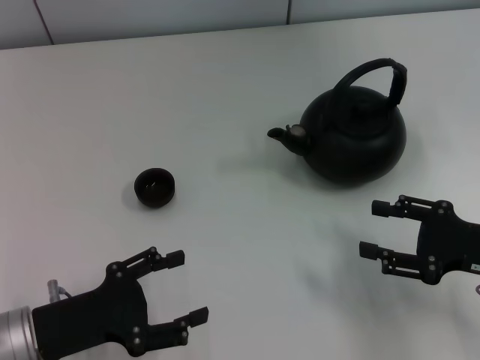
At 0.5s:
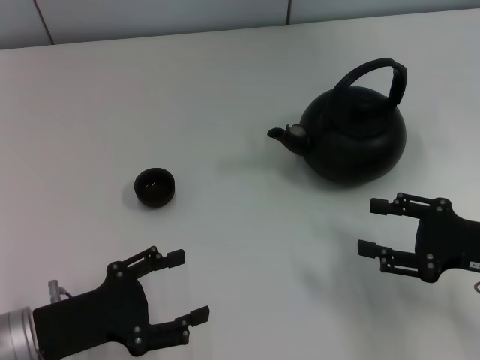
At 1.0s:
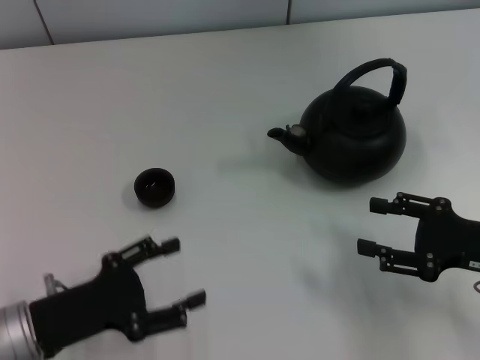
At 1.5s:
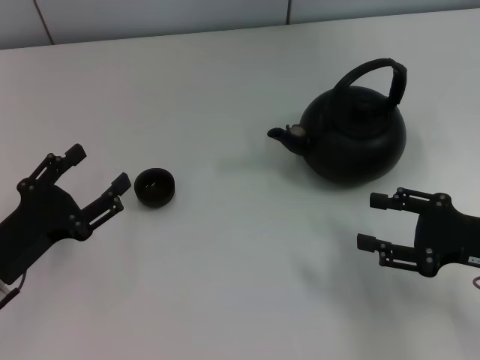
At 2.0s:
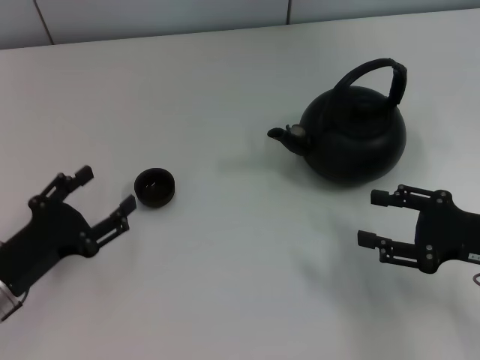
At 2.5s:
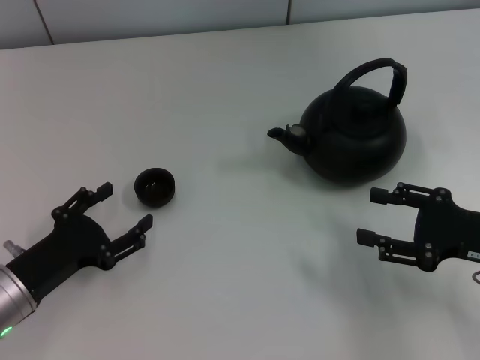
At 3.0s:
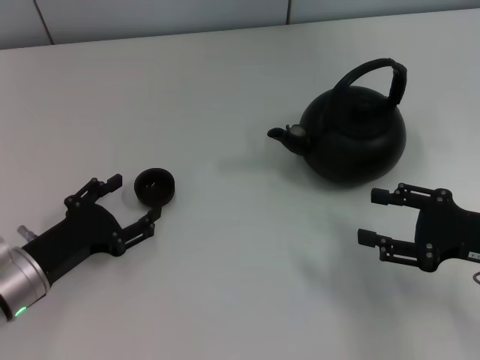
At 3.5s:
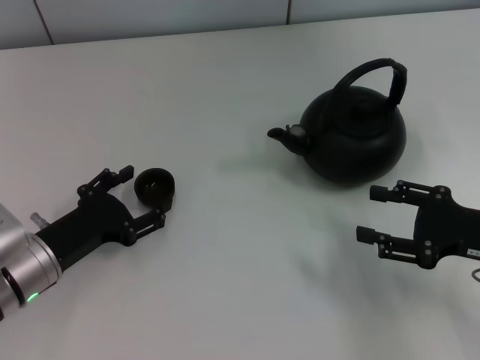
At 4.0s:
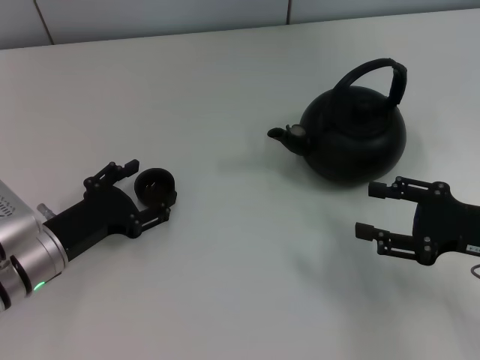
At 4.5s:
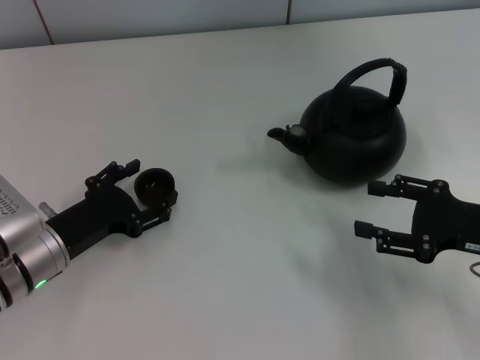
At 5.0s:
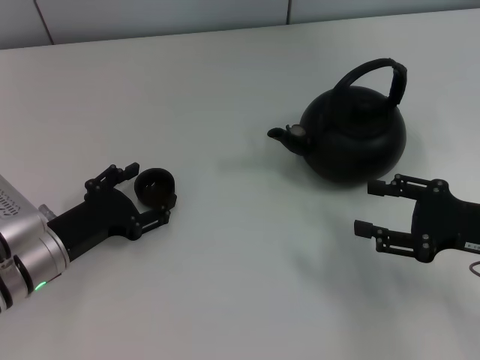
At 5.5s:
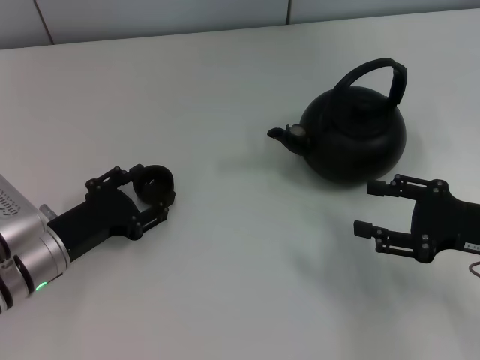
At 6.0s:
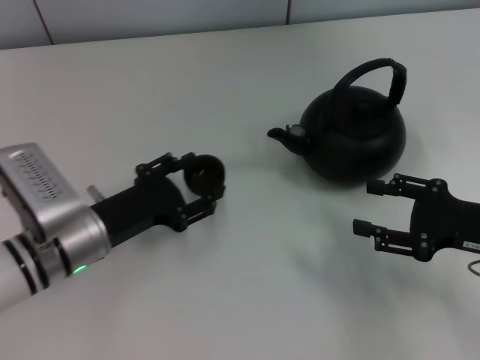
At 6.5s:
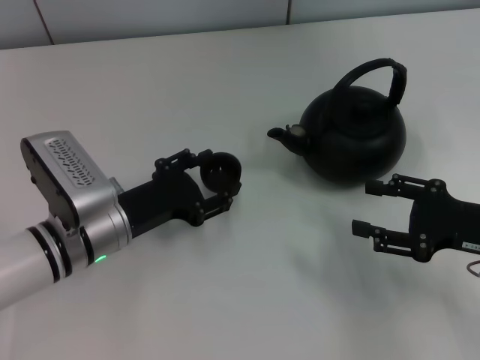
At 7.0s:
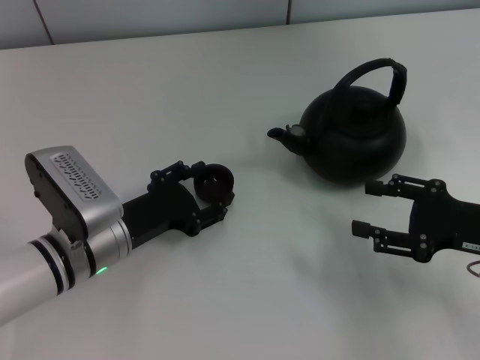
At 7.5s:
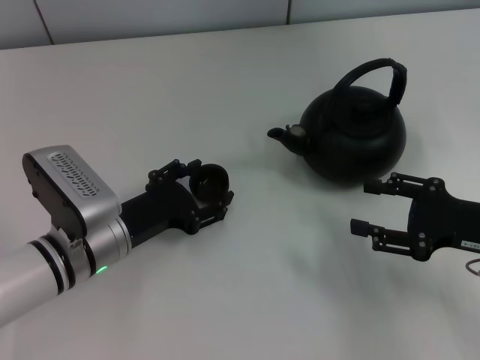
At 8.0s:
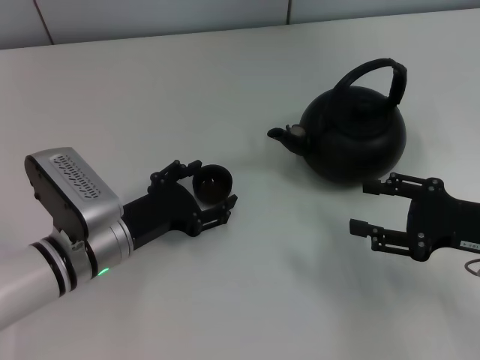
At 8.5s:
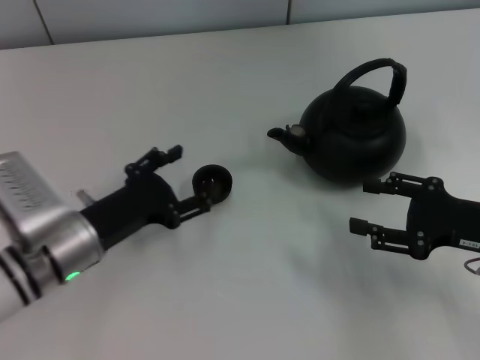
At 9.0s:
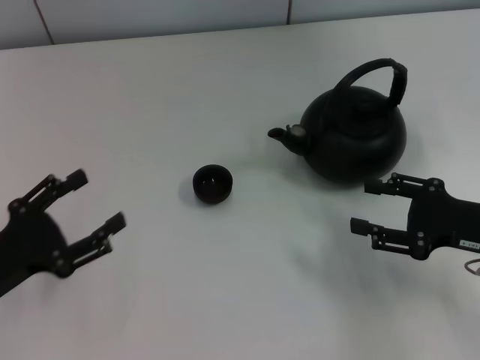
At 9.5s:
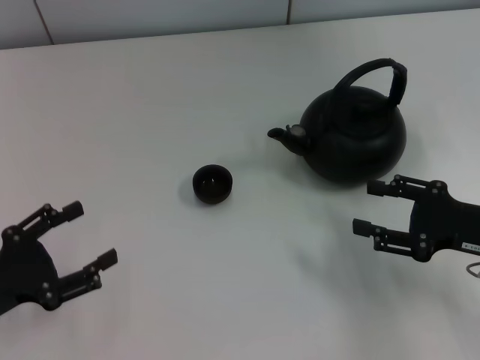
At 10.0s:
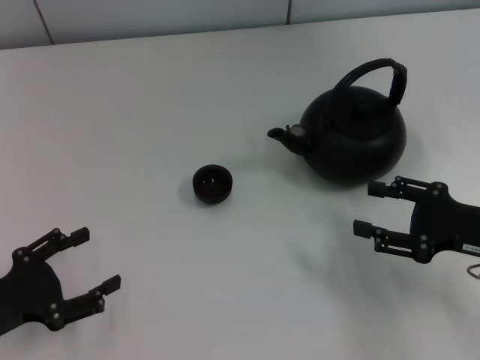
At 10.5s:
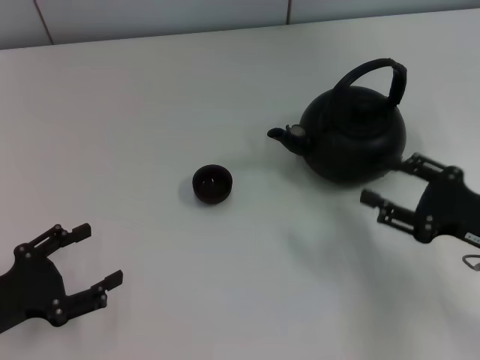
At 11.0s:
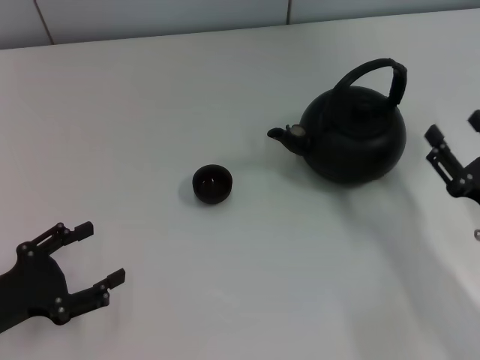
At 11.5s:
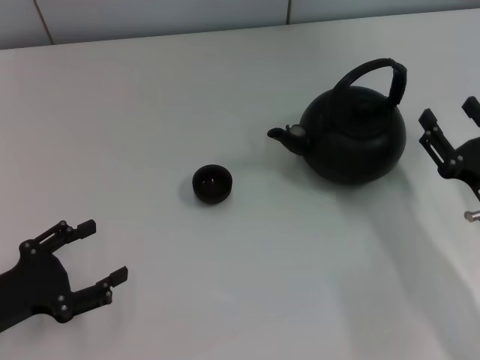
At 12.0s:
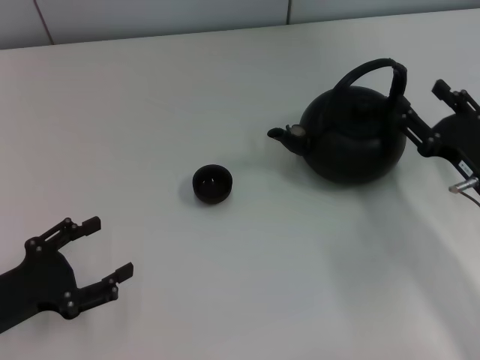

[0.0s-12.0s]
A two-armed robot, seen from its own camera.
Task of the whole recording: Grasp the handle of the teapot with one hand and pour tea into the teacup.
Step, 0.0s to 5.5s: Pick up the teacup with the left gripper.
Step, 6.5s to 8.0s: Place the teacup in the center of view with the left gripper.
2.0s to 4.0s: The left gripper shifts by about 5 cm.
4.0s to 6.0s: The left gripper closes.
6.0s to 8.0s: The left gripper opens.
8.0s to 10.0s: The left gripper moves to the left and backward, approximately 15 cm.

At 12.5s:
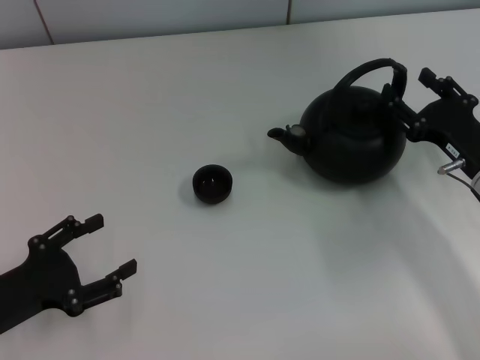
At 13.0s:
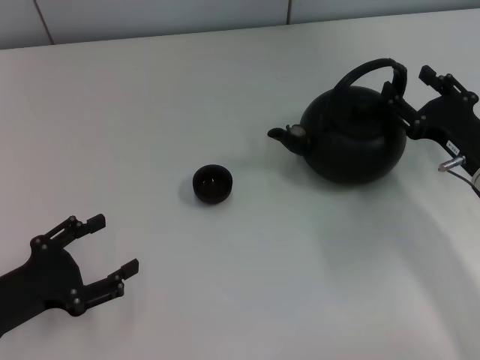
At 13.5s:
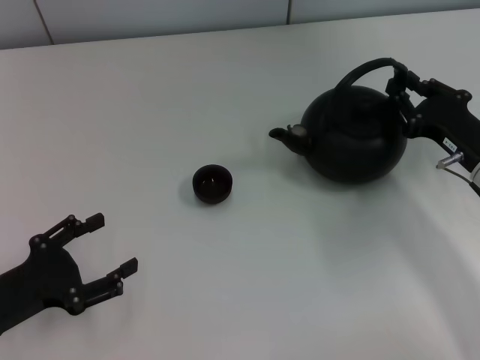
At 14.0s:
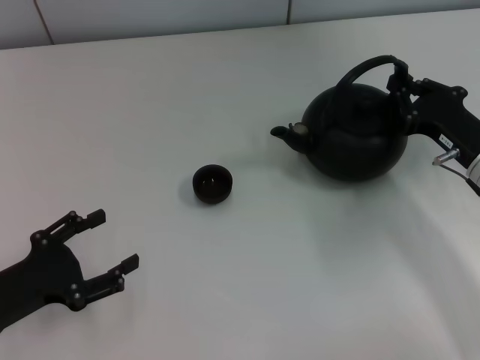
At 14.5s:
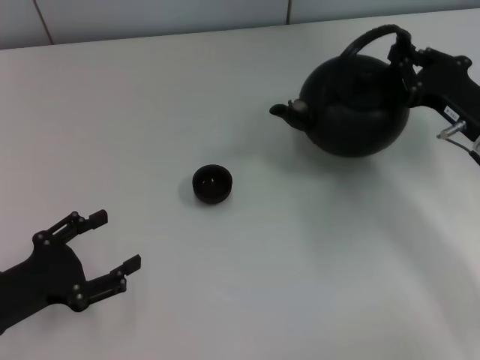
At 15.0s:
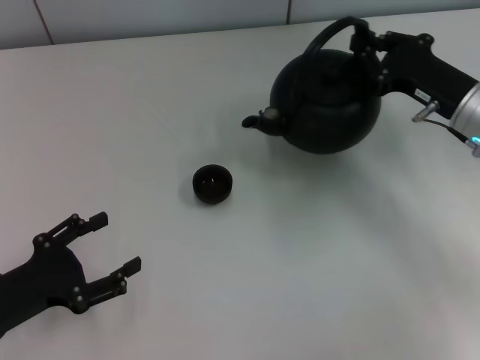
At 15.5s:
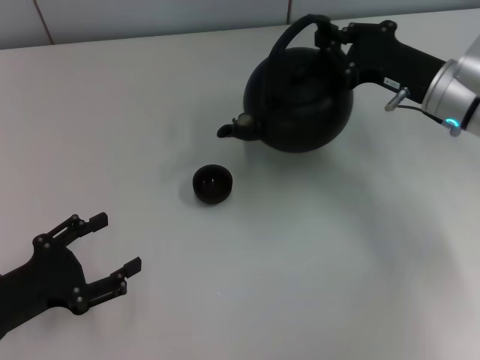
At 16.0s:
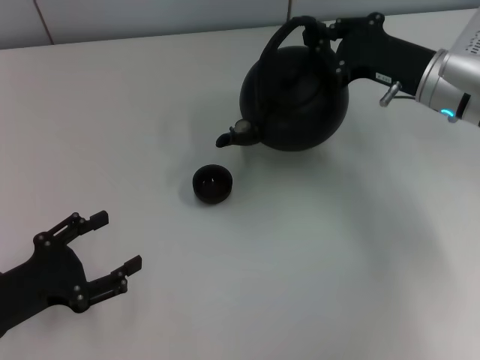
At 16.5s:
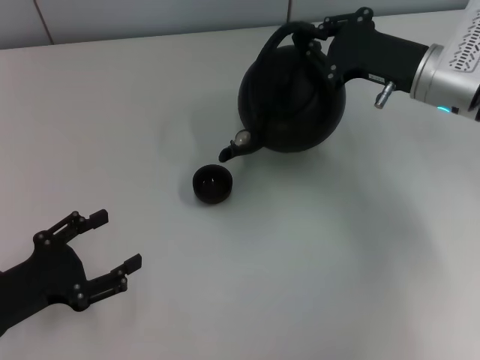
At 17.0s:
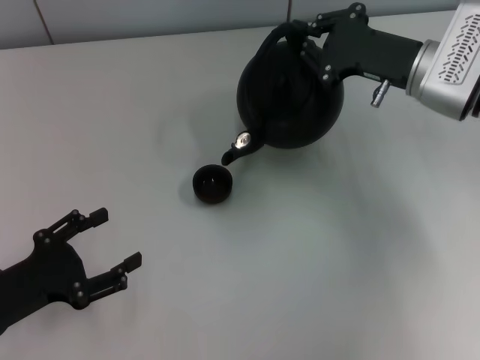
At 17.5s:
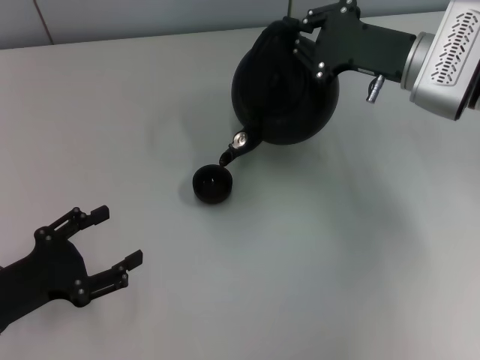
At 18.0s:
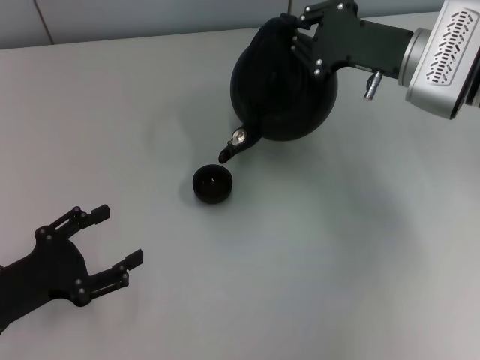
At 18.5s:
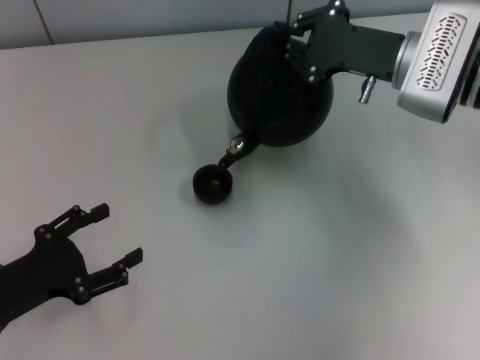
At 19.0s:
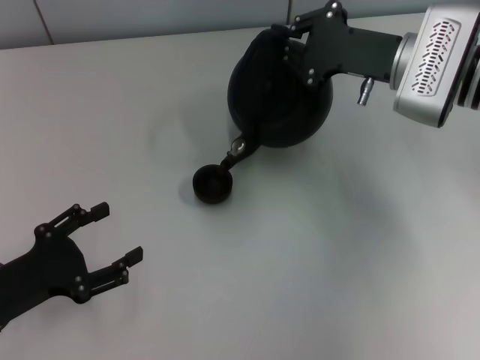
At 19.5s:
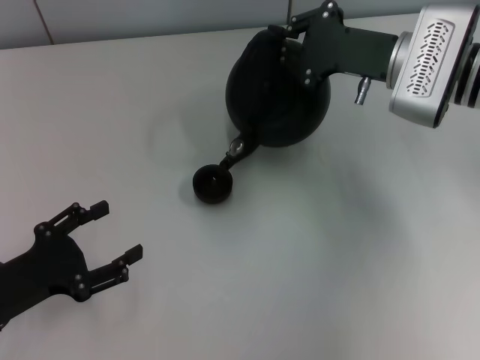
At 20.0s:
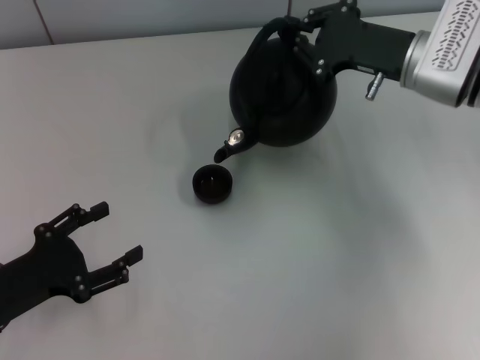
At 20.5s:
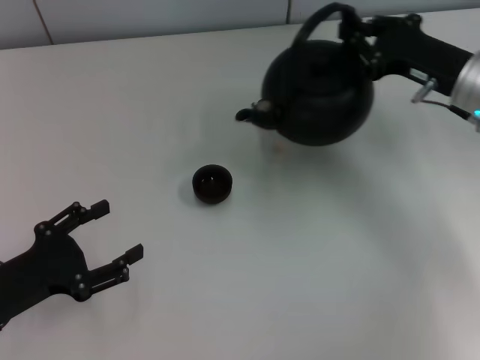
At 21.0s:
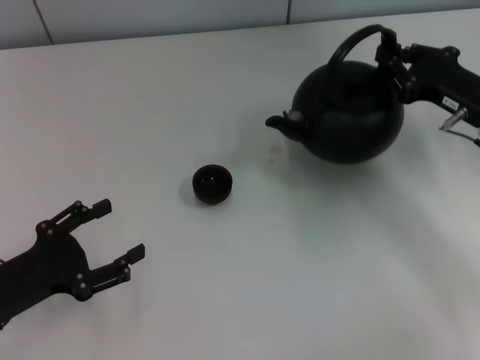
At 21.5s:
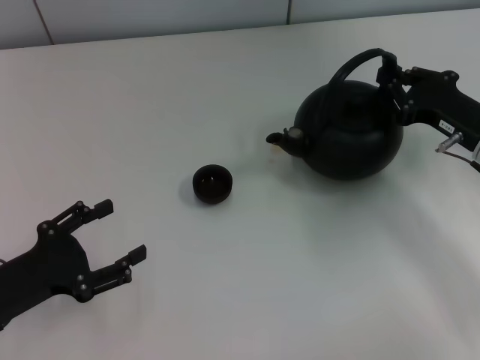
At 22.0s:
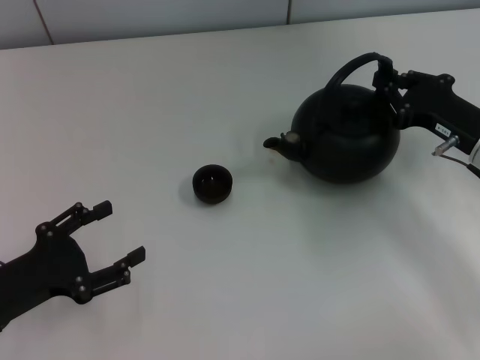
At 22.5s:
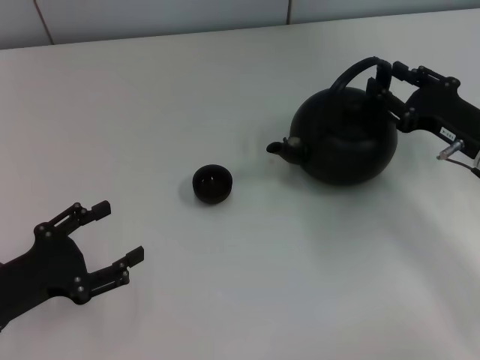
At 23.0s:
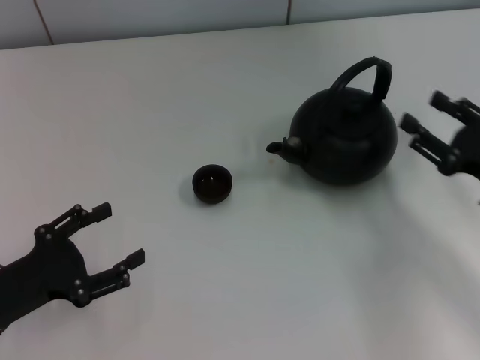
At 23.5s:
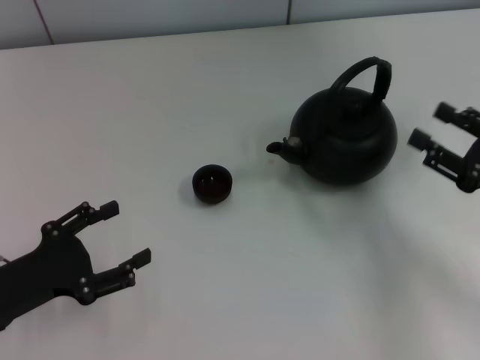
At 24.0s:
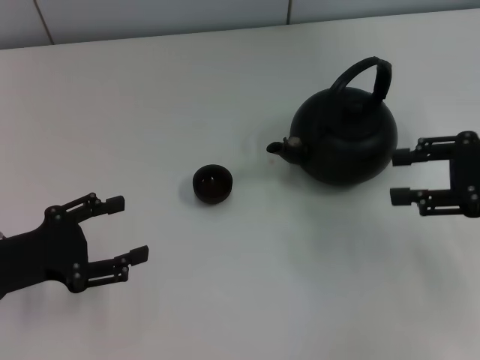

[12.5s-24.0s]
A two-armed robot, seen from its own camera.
Task of the whole recording: Grasp the handle of the teapot with one hand and pour tea into the teacup.
Step, 12.5s to 14.5s: Pick up the teapot with the right gripper.
Step, 20.5s to 22.5s: Put down the teapot with the right gripper.
12.5s to 14.5s: The right gripper closes up.
14.5s to 16.5s: The right gripper shifts about 10 cm forward, to the left and upward.
16.5s to 20.0s: The grippers stay close to where they were, moving slightly.
20.0s to 22.0s: The right gripper is displaced backward, downward and to the right by approximately 10 cm.
22.0s to 24.0s: The right gripper travels upward by some 5 cm, and opens.

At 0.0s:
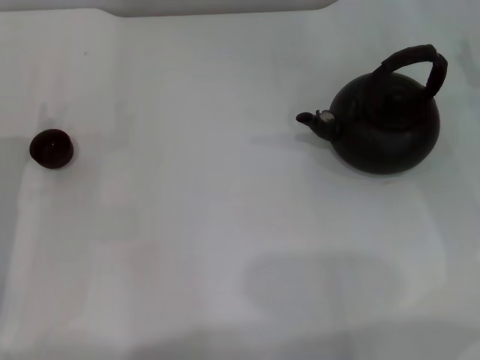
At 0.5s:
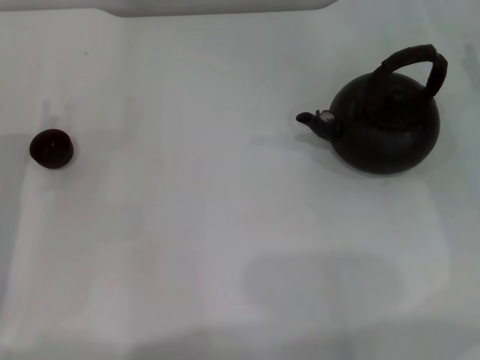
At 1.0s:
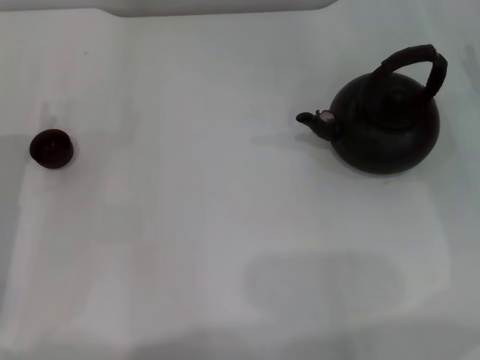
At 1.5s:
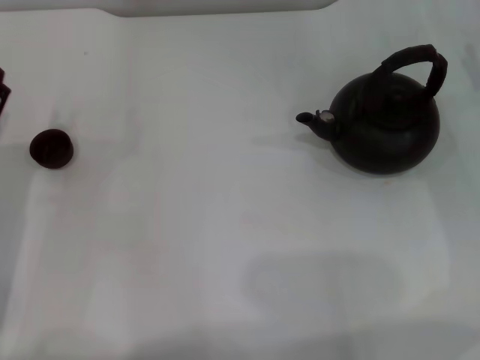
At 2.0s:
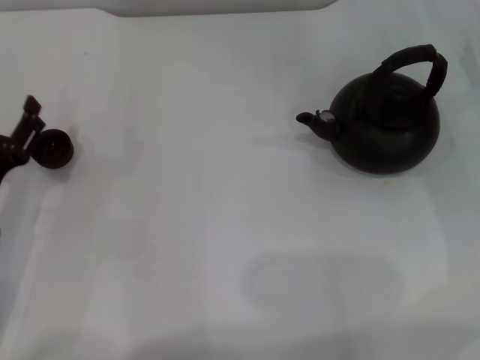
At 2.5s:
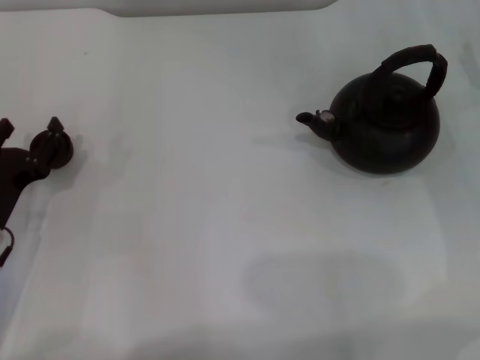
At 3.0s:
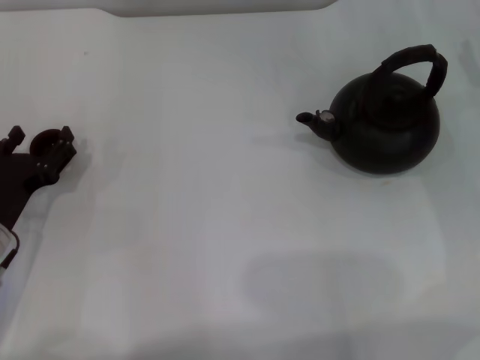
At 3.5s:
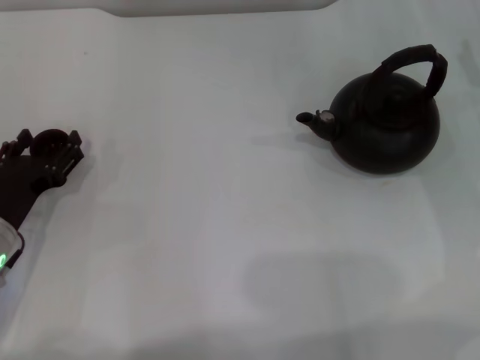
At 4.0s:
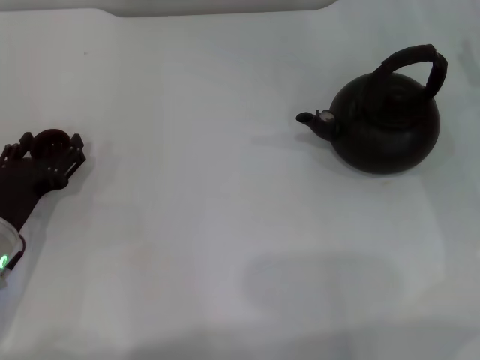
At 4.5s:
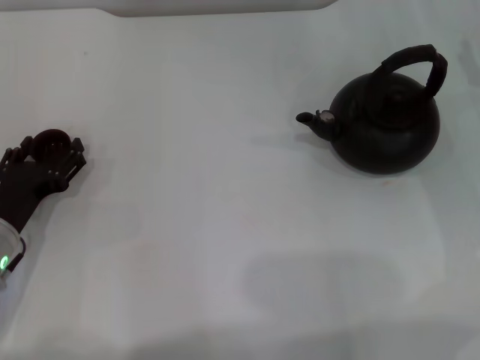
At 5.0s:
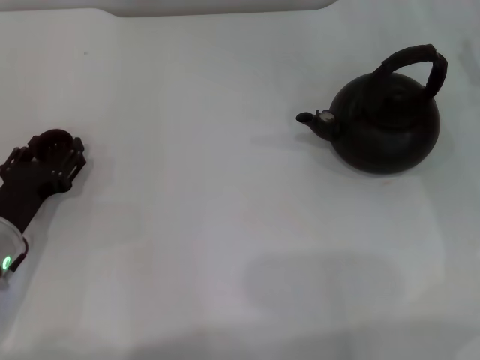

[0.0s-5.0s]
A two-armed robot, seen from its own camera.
Task of the whole recording: Grasp the handle of the teapot with one hand and pour tea into the teacup.
0.0s to 2.5s: The grippers make only small movements.
2.5s to 5.0s: The left gripper closes its fingers.
